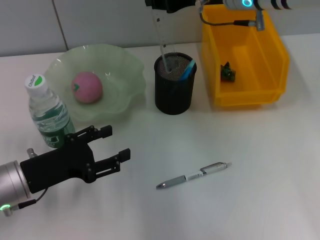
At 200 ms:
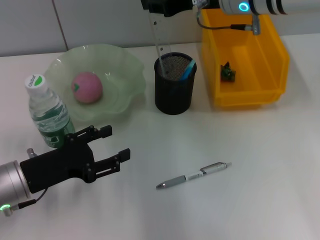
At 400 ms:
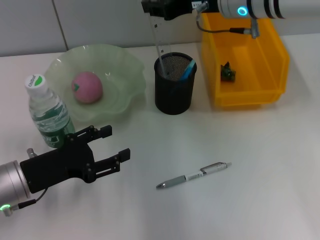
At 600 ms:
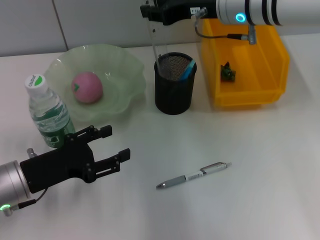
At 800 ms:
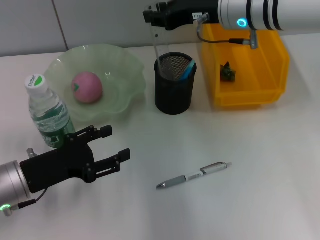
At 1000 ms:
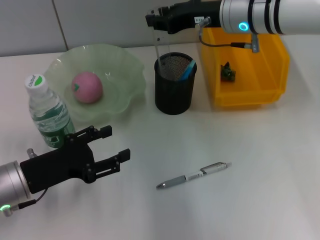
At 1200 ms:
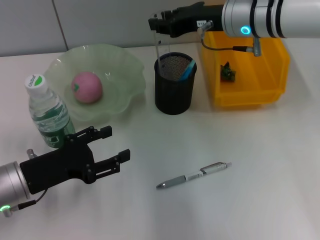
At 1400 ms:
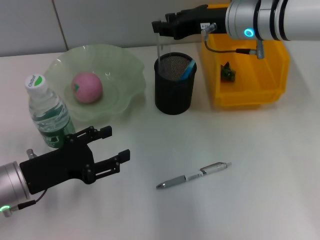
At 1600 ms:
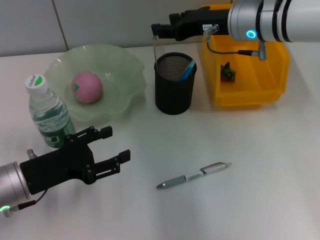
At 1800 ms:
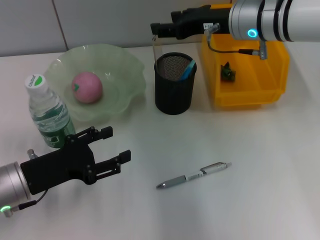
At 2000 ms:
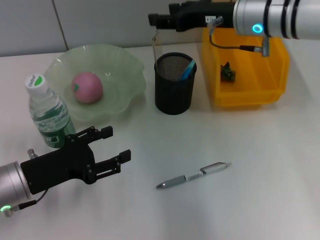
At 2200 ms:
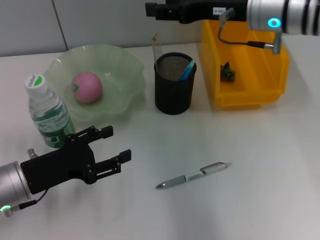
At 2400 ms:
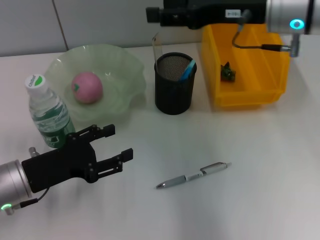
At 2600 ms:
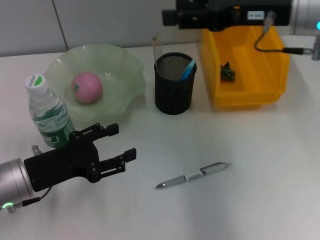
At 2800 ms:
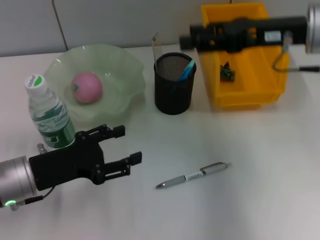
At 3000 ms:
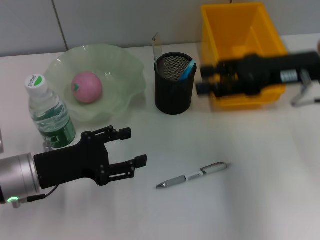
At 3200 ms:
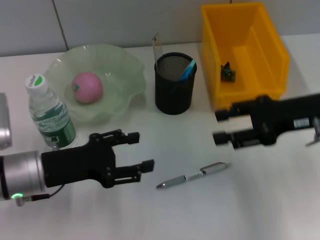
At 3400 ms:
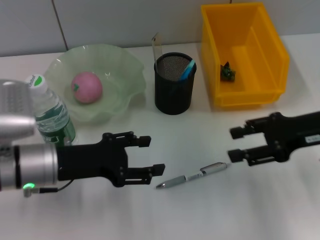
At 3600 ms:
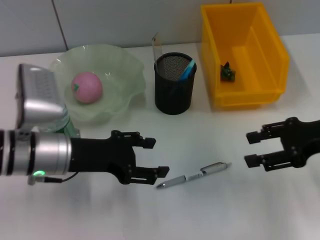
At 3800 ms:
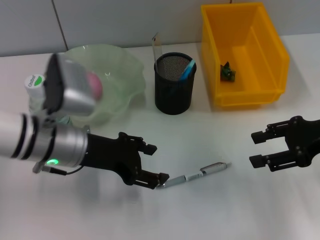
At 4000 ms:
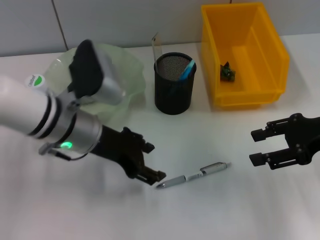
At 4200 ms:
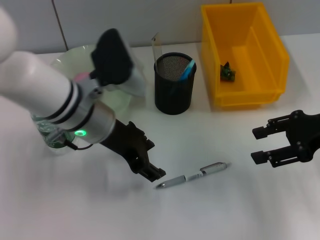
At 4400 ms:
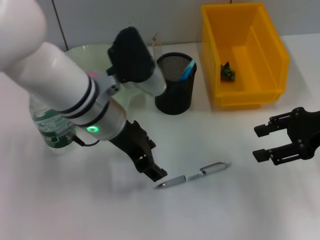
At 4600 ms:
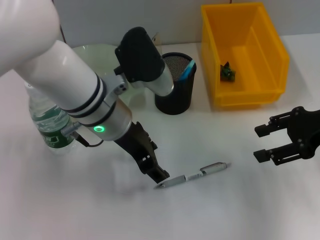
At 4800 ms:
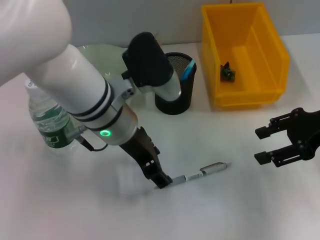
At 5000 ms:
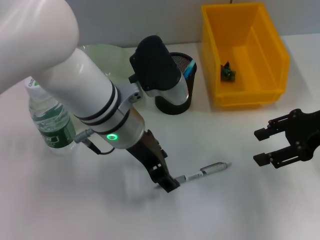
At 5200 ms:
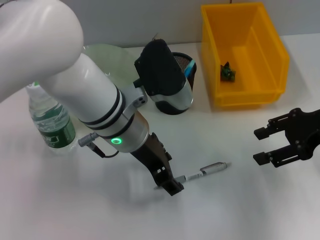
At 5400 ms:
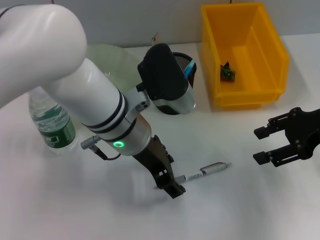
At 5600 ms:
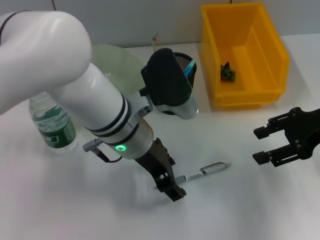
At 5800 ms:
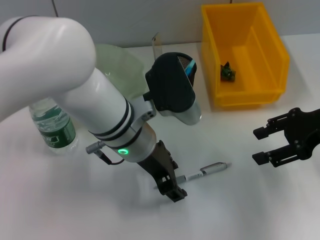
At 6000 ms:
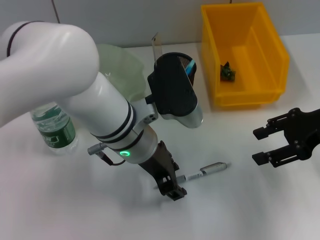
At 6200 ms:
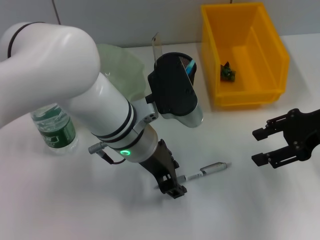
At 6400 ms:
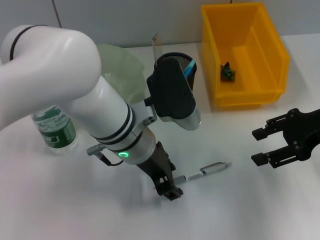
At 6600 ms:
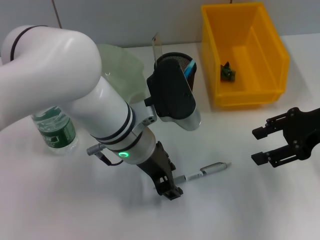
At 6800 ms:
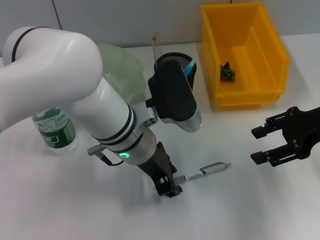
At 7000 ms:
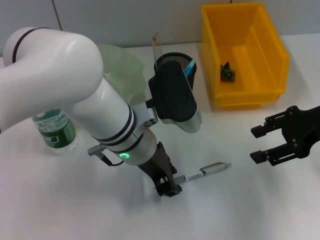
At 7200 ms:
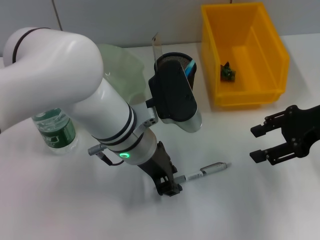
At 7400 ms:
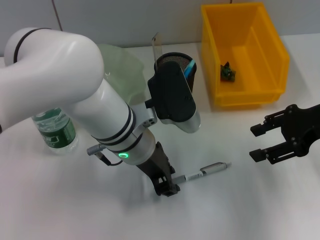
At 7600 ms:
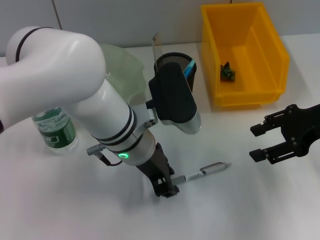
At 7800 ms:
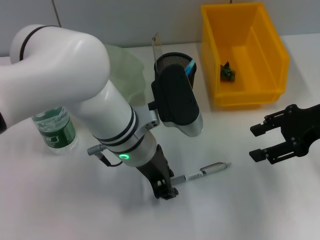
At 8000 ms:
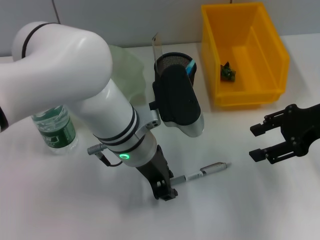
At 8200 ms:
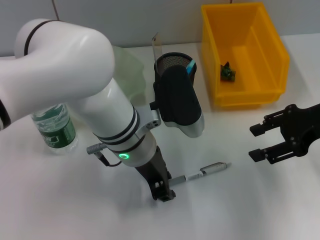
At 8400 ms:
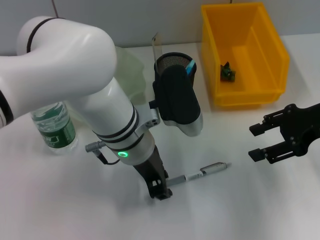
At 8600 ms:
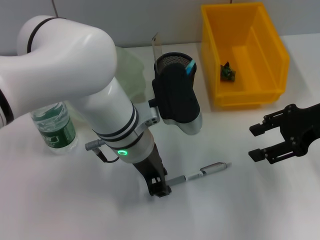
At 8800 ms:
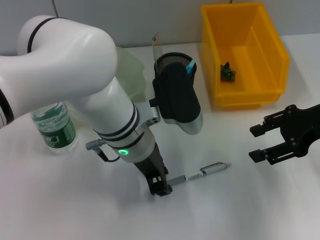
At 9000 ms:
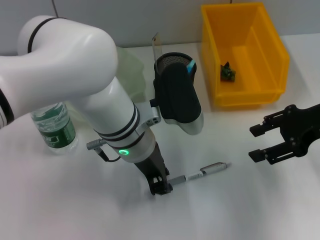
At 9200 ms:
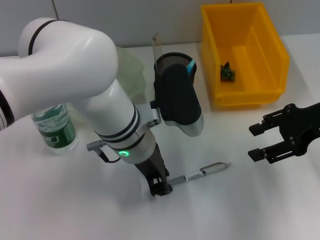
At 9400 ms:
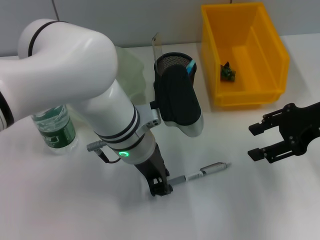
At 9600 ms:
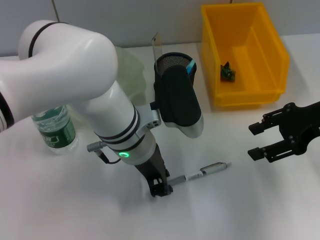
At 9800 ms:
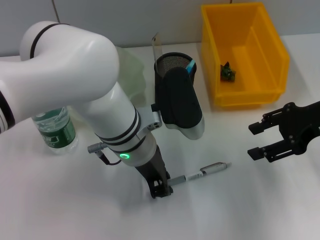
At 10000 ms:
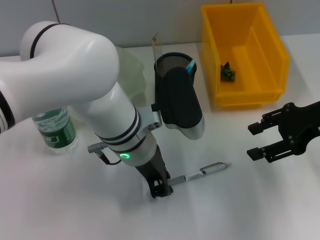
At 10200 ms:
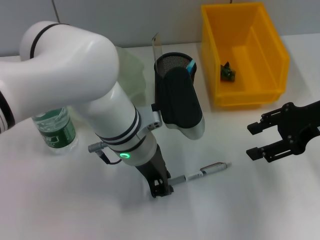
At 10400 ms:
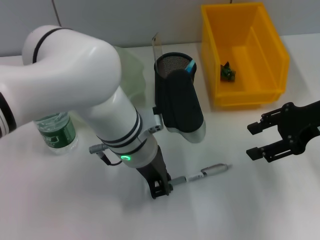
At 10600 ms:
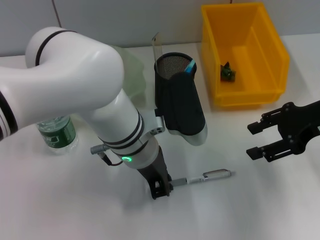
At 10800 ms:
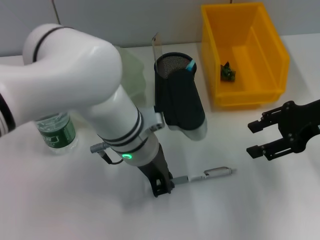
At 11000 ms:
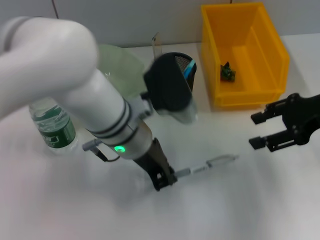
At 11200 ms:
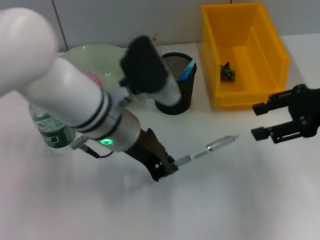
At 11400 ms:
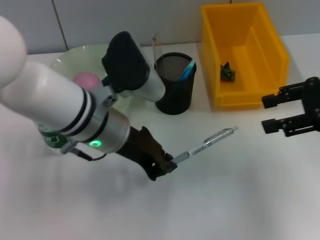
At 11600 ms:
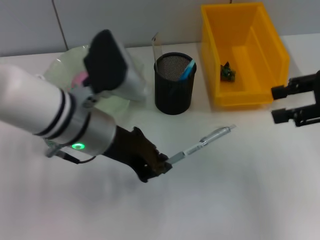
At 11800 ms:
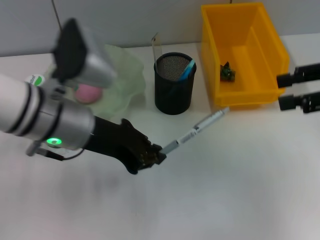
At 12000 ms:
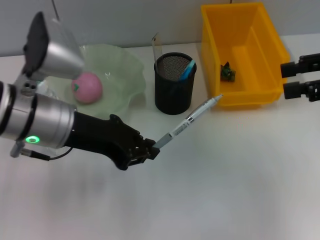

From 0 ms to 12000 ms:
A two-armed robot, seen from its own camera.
Step, from 2000 ms to 10600 ms: Grab the gray spring-action pen with the left hand.
From 0 ms to 1600 ms: The right gripper ends up approximately 5 cm from where it was.
From 1600 ms to 3000 ms: The right gripper travels to the right and backward by roughly 15 cm, and opens its fingers.
From 3000 ms to 4400 ms: The left gripper goes about 20 cm to the right, upward and forward; the right gripper heads to the right, covering about 5 cm.
From 4400 ms to 6000 ms: The left gripper moves roughly 5 cm.
From 6000 ms to 7600 ms: Neither gripper changes place.
From 7600 ms to 9000 ms: Both grippers stay put.
From 9000 ms to 10400 ms: Both grippers stay put.
From 10400 ms to 12000 ms: The left gripper travels to the left and upward by approximately 15 cm. Meanwhile the right gripper goes about 10 cm upward and to the right.

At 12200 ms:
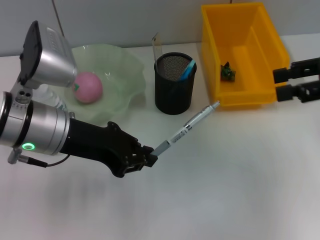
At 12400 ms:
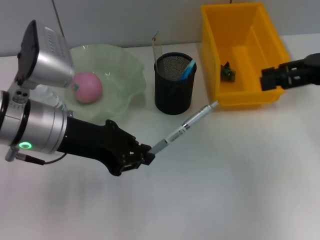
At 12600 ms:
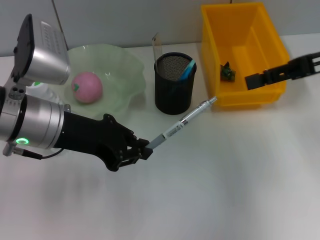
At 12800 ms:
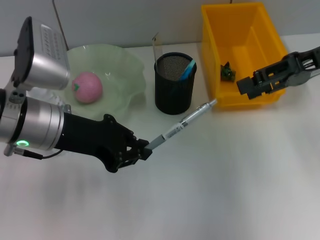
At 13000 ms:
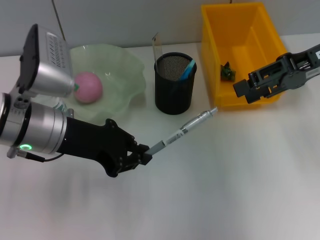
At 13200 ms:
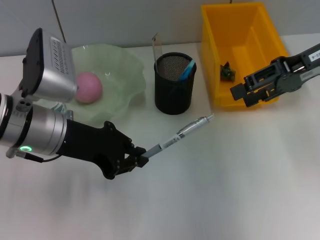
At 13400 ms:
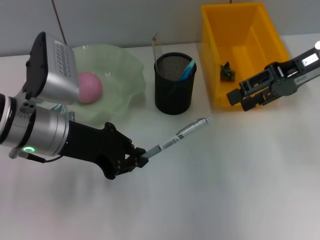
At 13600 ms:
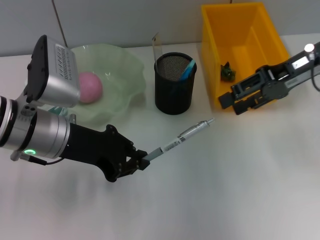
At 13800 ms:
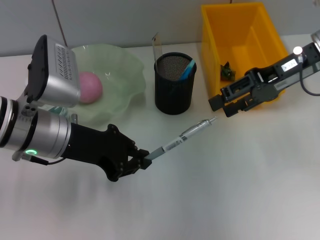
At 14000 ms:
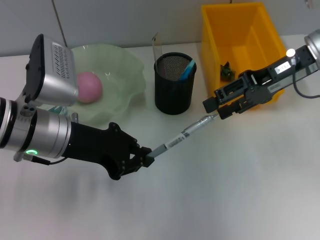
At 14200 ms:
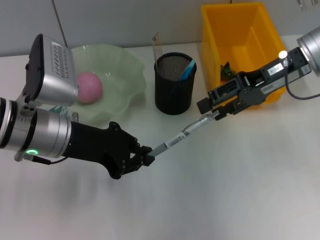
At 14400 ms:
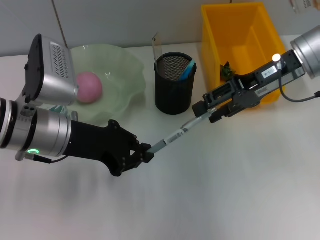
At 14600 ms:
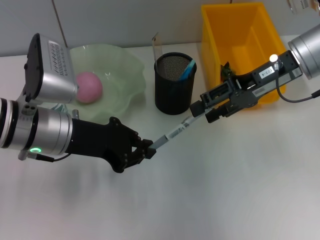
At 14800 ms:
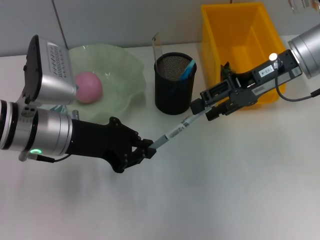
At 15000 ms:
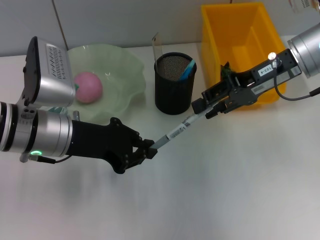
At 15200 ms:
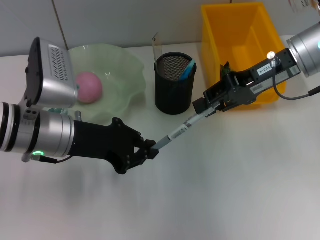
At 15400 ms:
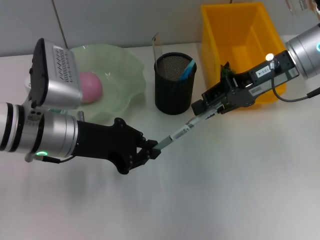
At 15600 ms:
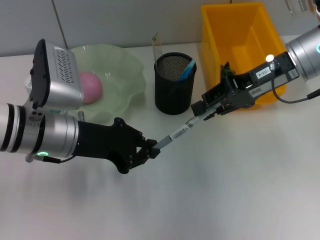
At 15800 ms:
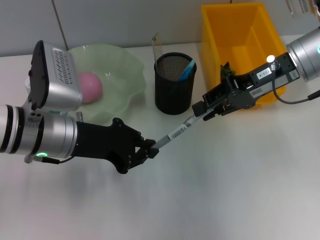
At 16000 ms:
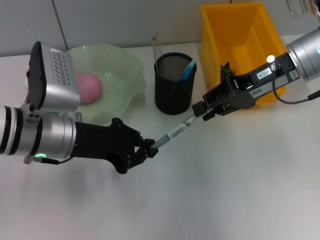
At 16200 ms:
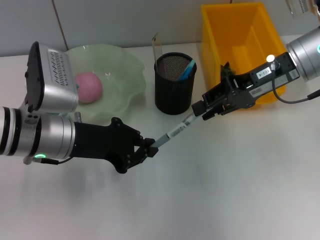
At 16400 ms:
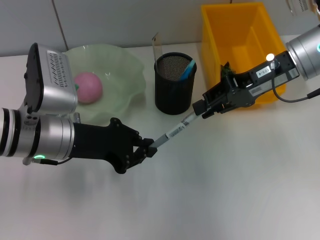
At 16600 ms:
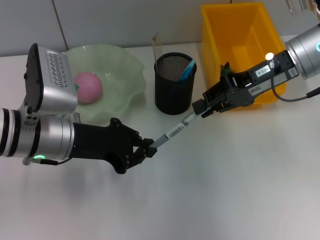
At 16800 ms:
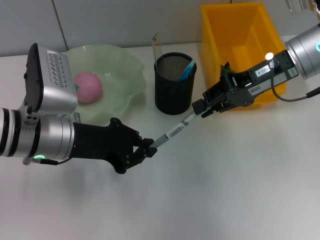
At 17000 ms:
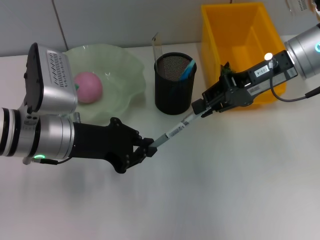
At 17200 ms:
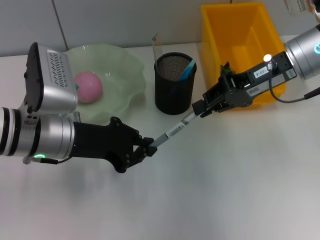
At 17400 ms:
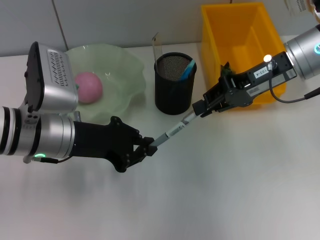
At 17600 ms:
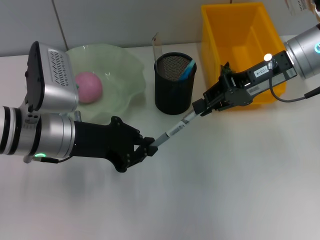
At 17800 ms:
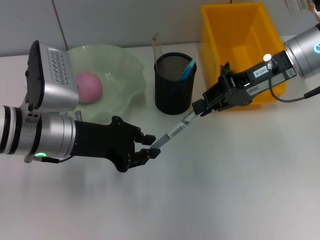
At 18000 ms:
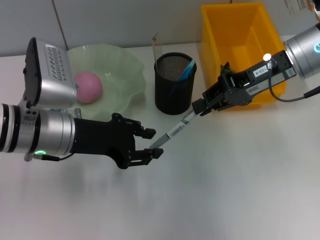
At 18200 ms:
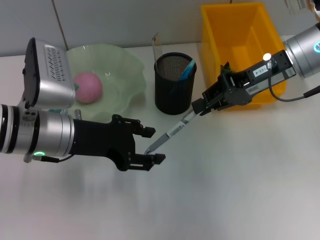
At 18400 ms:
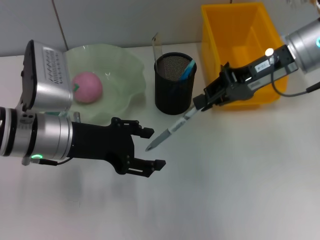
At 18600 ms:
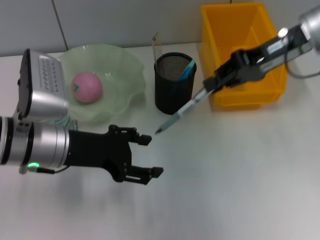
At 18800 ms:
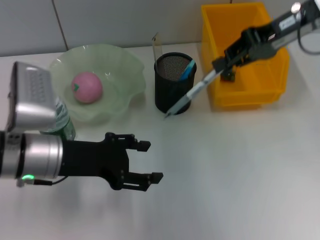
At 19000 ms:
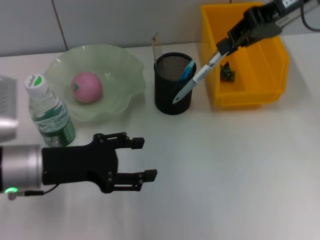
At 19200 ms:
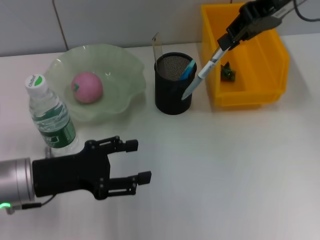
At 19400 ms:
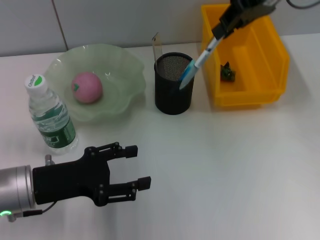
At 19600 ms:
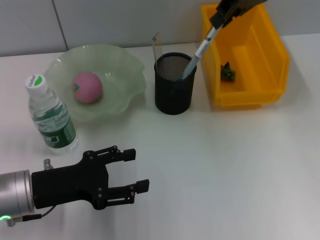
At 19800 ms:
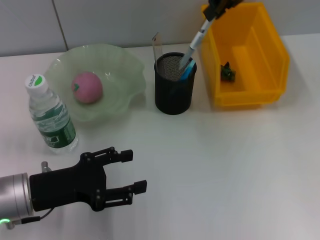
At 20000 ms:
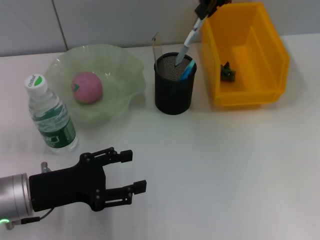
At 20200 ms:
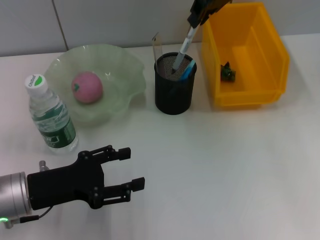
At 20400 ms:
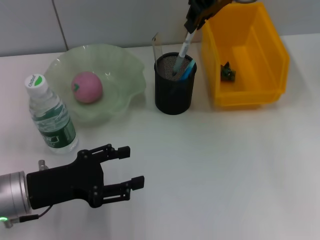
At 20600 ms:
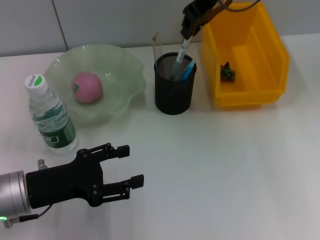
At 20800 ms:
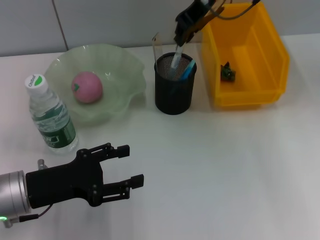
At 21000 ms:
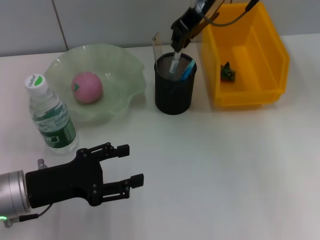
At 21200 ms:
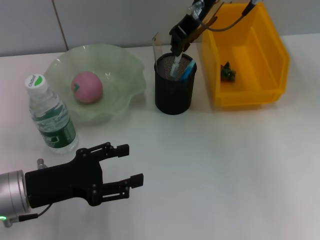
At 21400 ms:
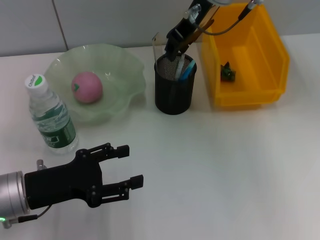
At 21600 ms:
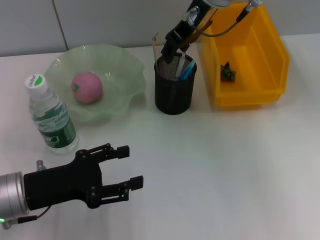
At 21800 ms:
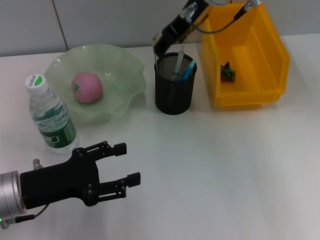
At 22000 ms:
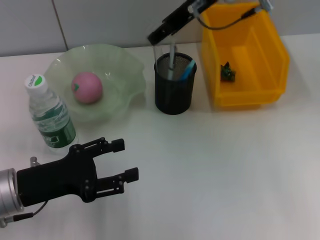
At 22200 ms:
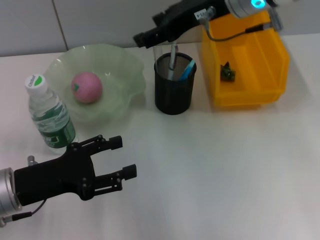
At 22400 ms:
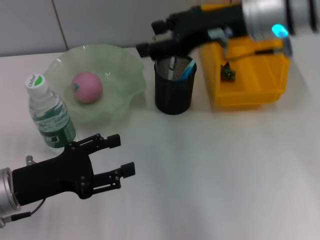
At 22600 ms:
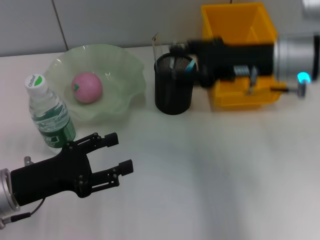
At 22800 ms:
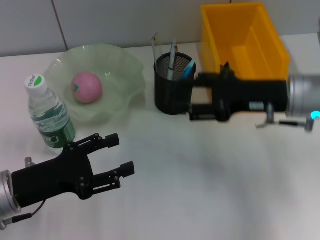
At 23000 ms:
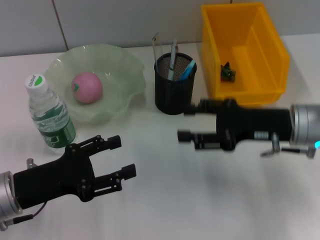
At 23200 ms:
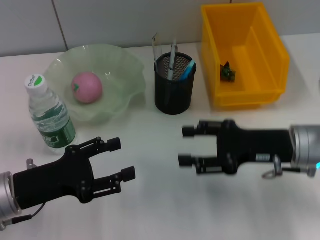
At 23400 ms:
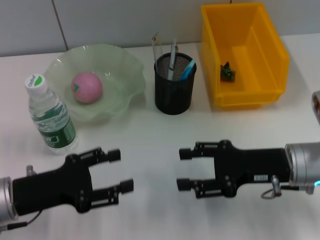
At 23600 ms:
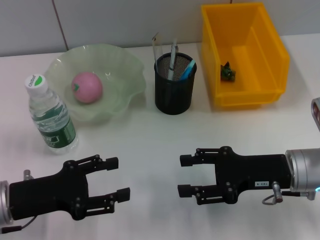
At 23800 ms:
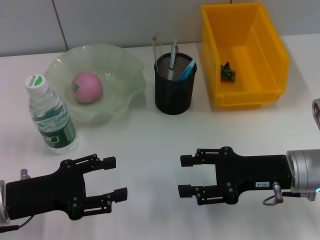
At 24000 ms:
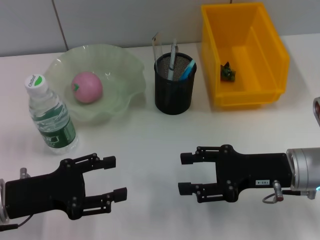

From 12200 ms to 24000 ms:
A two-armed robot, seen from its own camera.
Step, from 12200 ms to 17600 ms: Pass the gray spring-action pen from the left hand to the right hand.
Step, from 17800 ms to 21600 ms: Place the gray spring-action pen into the pen holder with the right hand.
From 12200 ms to 13600 ms: The right gripper goes about 10 cm to the left and forward.
From 13600 ms to 15200 ms: The grippers make only small movements.
From 15200 ms to 18200 ms: The two grippers keep their place.
From 18200 ms to 19600 ms: The right gripper moves upward and forward, approximately 15 cm, while the left gripper heads backward, downward and to the left, covering about 10 cm, and opens up.
From 19600 ms to 21000 ms: The right gripper is displaced to the left and downward by about 10 cm.
From 21000 ms to 22600 ms: The right gripper shifts roughly 20 cm backward, to the right and downward, and opens.
From 22600 ms to 24000 ms: The right gripper is displaced downward and backward by roughly 15 cm.
